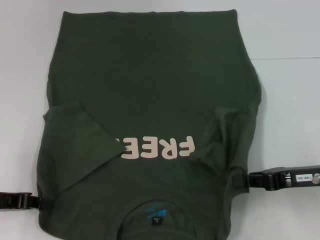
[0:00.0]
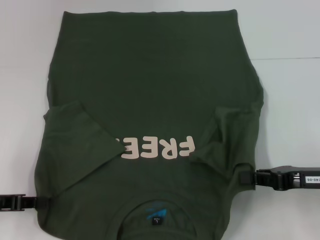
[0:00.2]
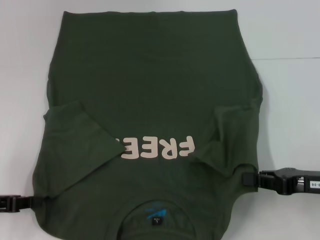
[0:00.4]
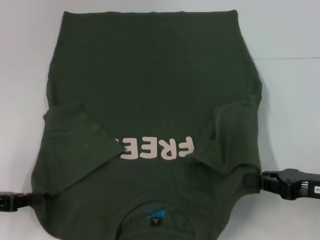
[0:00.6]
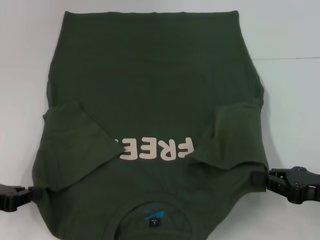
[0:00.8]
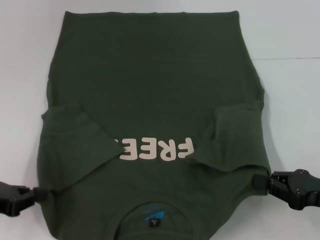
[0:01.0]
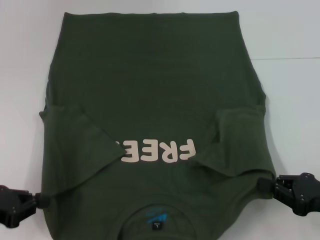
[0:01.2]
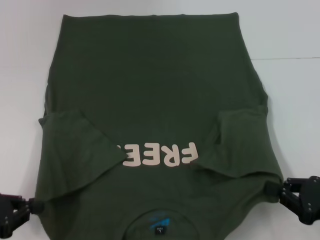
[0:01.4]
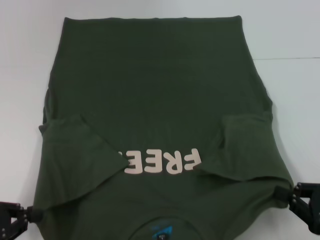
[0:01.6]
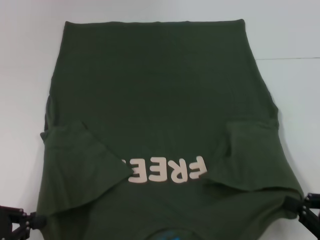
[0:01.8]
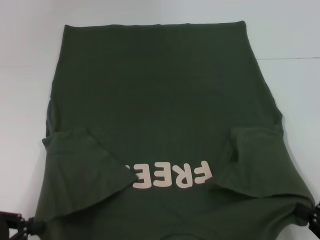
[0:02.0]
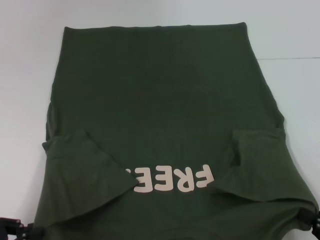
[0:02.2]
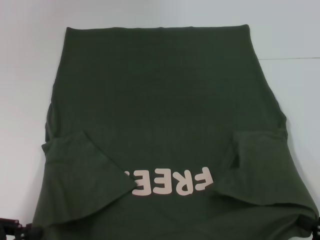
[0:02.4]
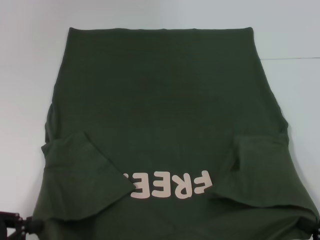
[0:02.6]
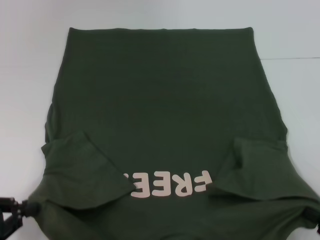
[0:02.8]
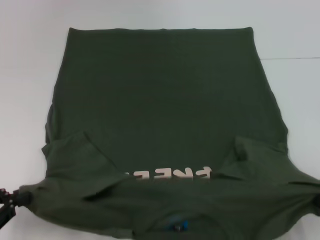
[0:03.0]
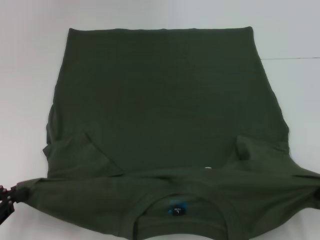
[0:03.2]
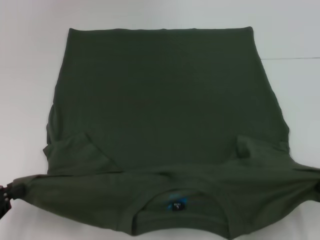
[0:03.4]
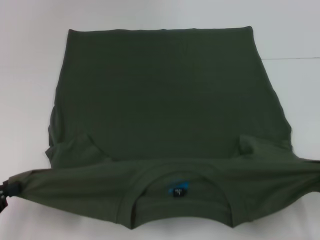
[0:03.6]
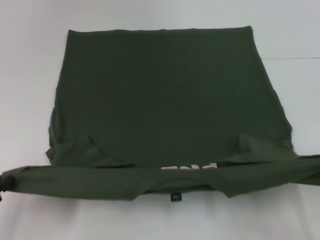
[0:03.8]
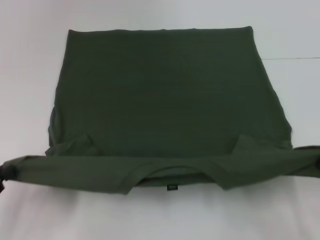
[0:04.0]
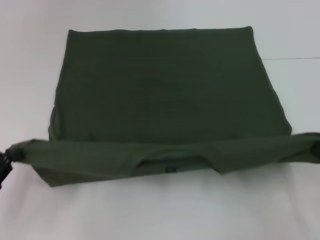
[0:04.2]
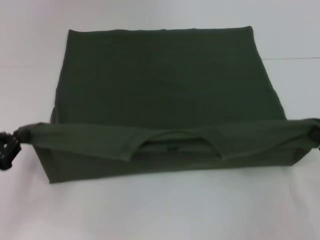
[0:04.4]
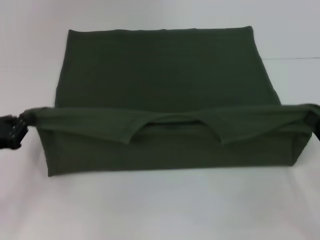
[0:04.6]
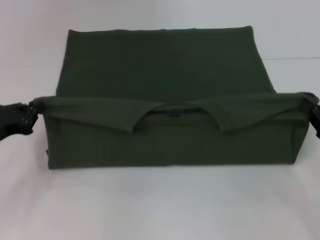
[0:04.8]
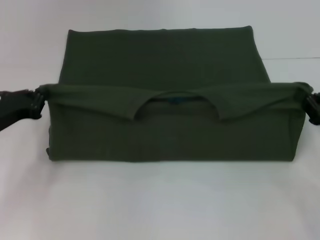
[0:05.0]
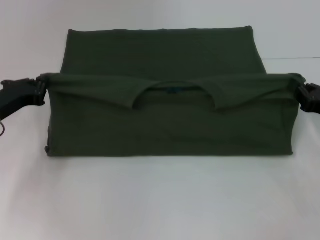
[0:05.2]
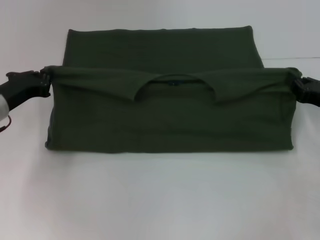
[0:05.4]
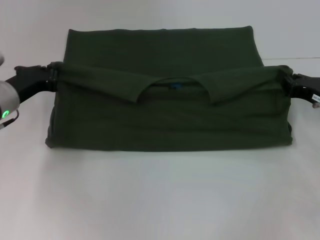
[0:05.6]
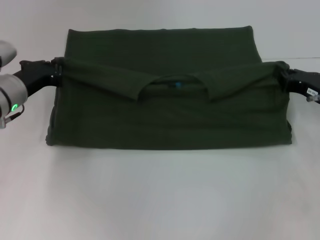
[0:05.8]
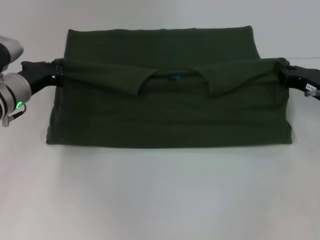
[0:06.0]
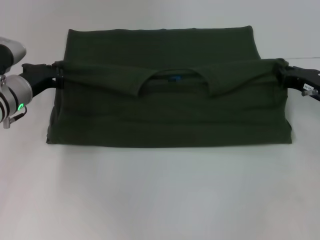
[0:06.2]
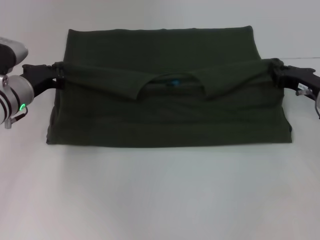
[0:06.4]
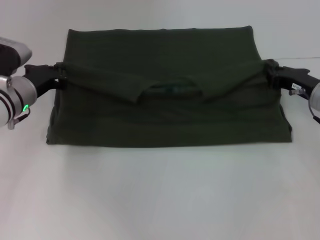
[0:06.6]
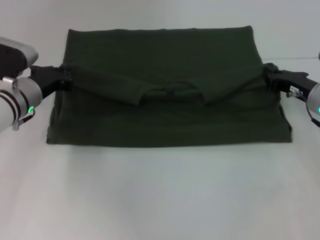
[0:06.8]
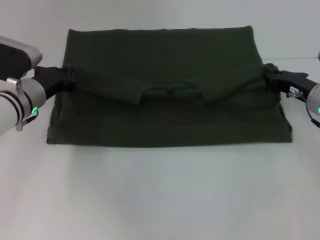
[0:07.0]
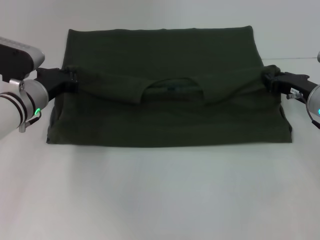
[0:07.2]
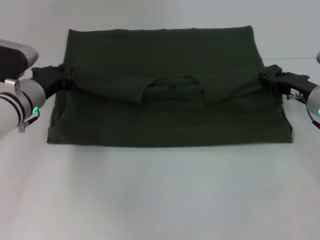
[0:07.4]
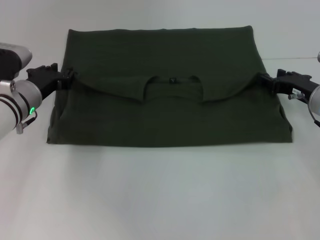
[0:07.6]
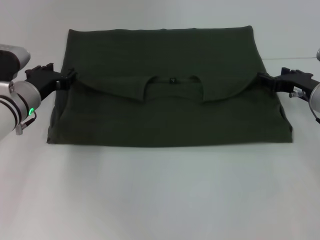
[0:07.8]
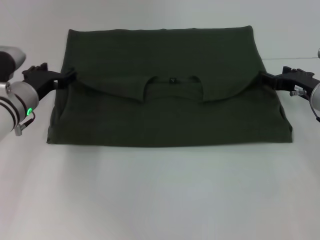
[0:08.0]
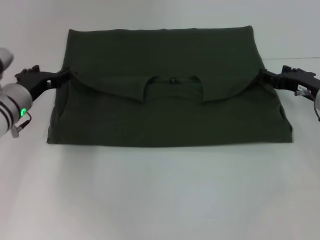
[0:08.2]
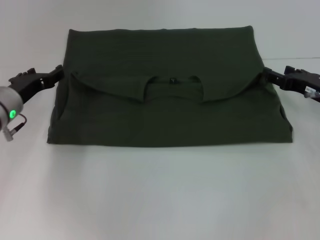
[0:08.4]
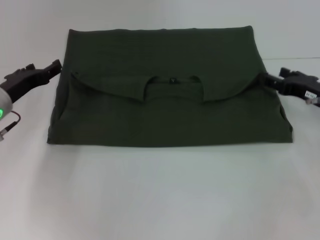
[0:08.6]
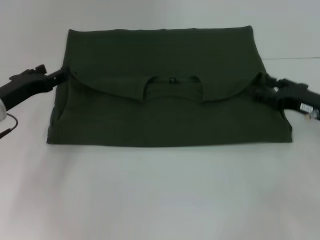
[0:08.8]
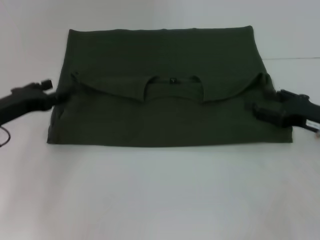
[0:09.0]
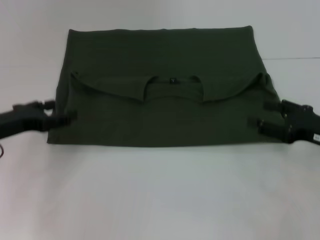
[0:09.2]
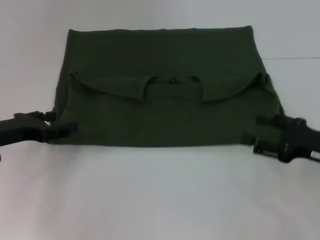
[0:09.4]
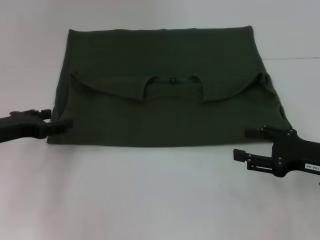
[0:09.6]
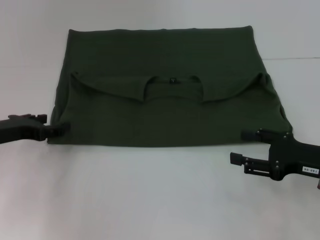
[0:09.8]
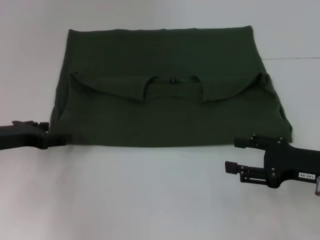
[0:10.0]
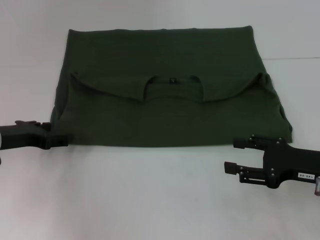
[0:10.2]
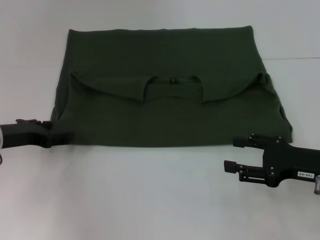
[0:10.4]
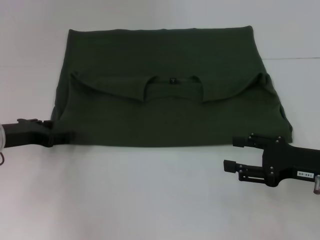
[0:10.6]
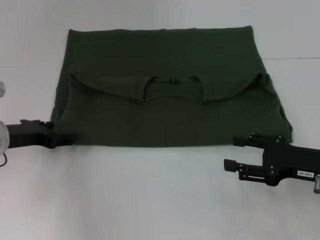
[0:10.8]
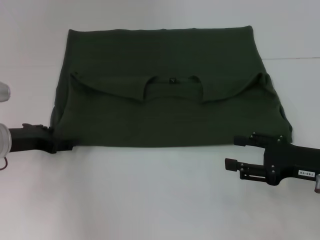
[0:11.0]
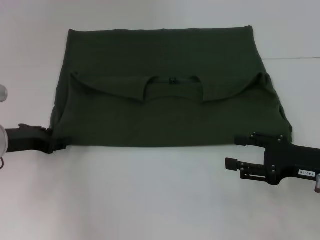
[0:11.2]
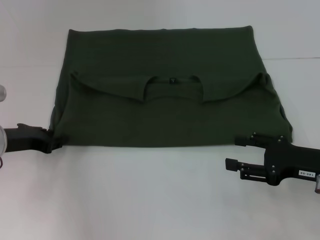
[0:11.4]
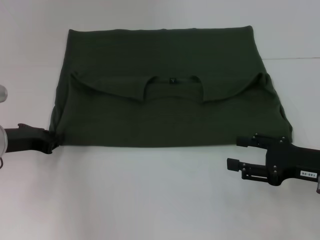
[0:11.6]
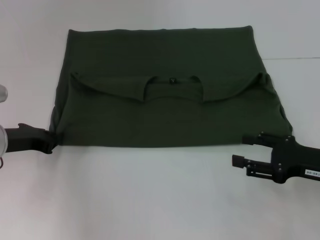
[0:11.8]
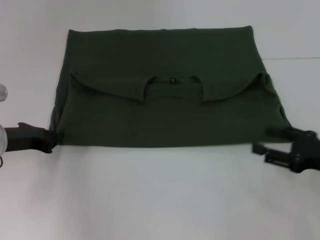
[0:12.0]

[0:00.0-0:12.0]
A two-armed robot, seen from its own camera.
Step, 0:00.0 to 0:08.0: Fold the clothes with your left hand.
Step, 0:00.0 to 0:08.0: Fold the clothes with your right hand.
0:00.0 to 0:01.6: Both grippers move backward, roughly 10 cm.
0:01.6 to 0:03.0: The right gripper travels backward by about 5 cm.
0:03.0 to 0:04.4: Both grippers move forward, some 5 cm.
0:04.4 to 0:06.0: The left gripper heads forward and to the right, covering roughly 20 cm; the right gripper shifts some 15 cm forward.
0:06.0 to 0:07.6: The right gripper opens.
0:07.6 to 0:09.0: The left gripper shifts approximately 10 cm backward and to the left, and opens its fingers. Meanwhile the right gripper shifts approximately 5 cm backward, and opens.
0:09.0 to 0:10.4: The right gripper ends up approximately 5 cm from where it was.
0:10.4 to 0:12.0: The left gripper closes up.

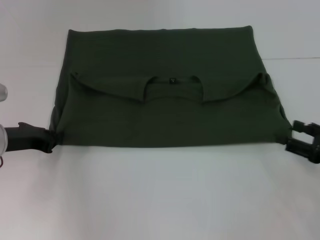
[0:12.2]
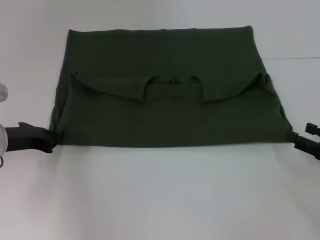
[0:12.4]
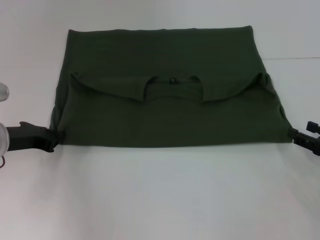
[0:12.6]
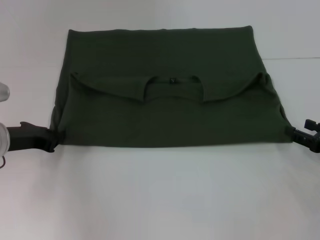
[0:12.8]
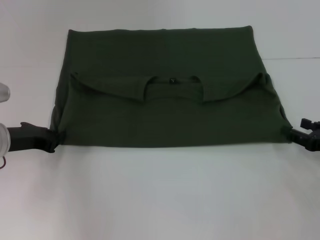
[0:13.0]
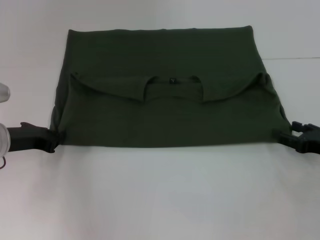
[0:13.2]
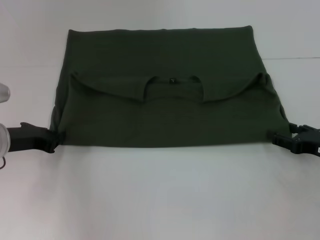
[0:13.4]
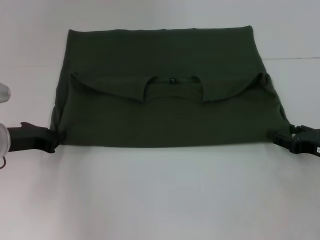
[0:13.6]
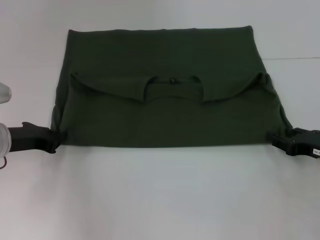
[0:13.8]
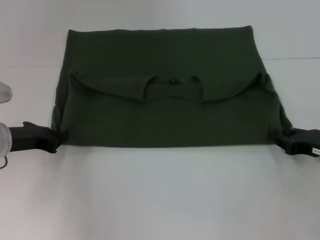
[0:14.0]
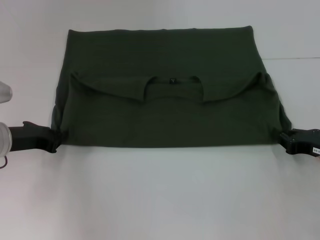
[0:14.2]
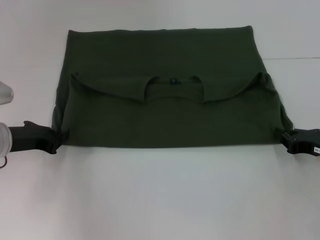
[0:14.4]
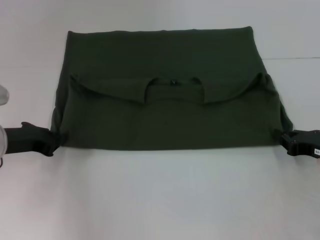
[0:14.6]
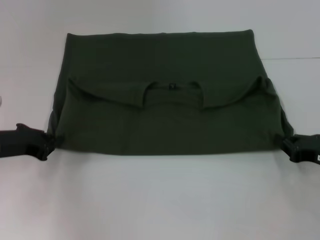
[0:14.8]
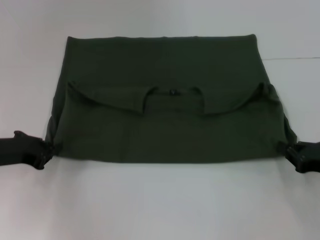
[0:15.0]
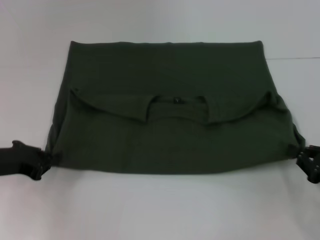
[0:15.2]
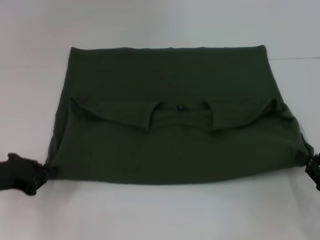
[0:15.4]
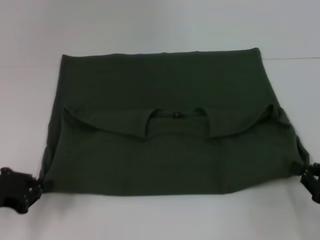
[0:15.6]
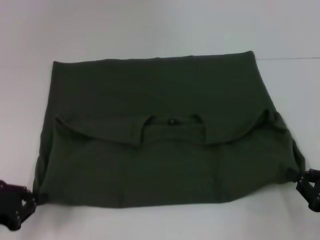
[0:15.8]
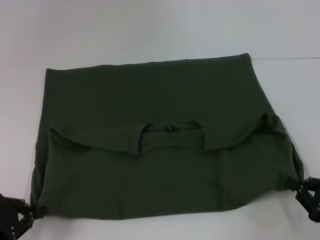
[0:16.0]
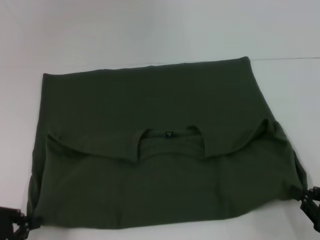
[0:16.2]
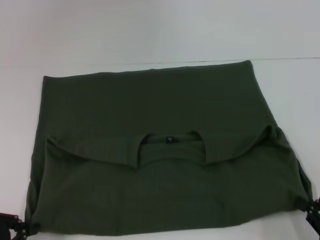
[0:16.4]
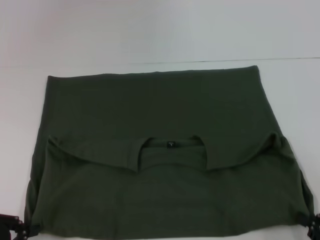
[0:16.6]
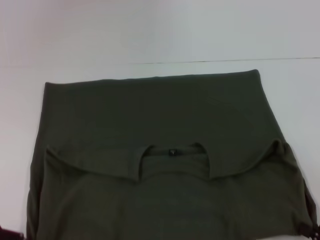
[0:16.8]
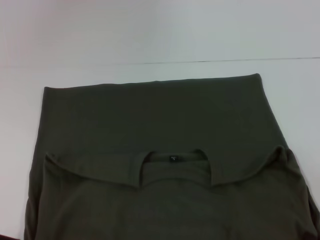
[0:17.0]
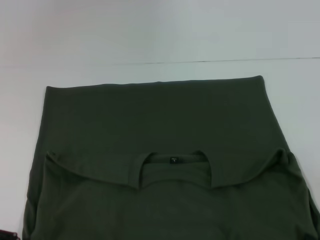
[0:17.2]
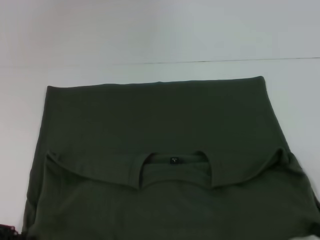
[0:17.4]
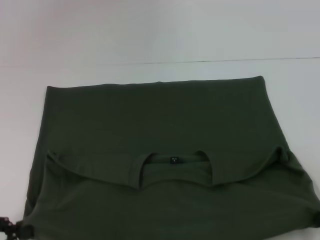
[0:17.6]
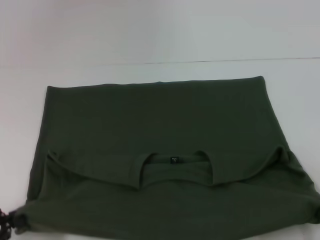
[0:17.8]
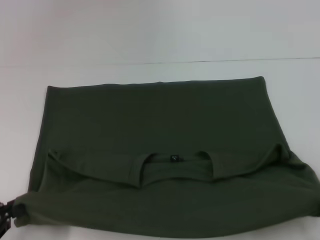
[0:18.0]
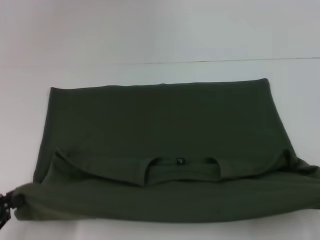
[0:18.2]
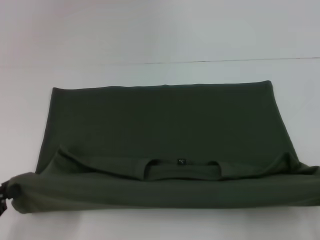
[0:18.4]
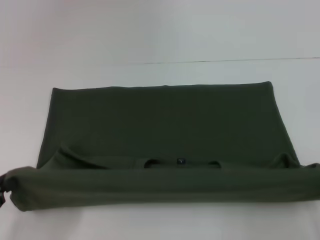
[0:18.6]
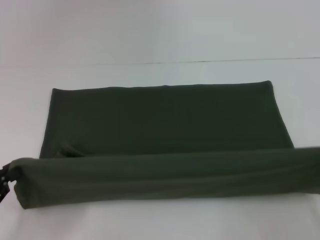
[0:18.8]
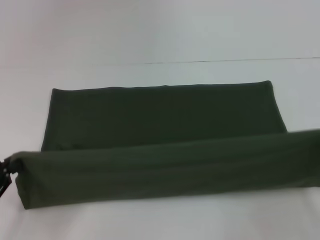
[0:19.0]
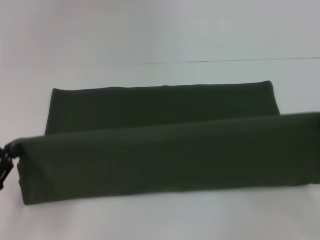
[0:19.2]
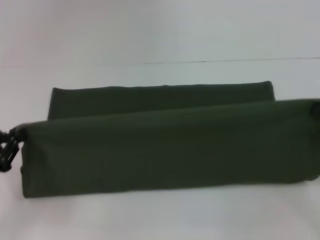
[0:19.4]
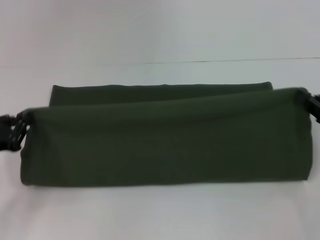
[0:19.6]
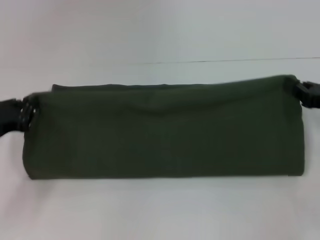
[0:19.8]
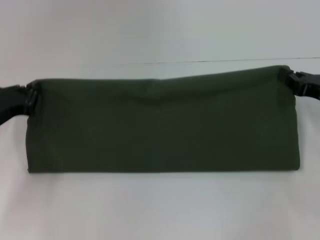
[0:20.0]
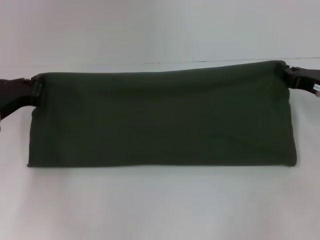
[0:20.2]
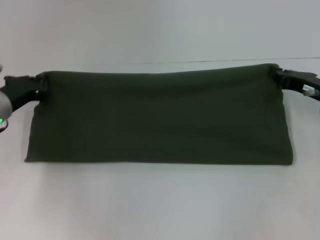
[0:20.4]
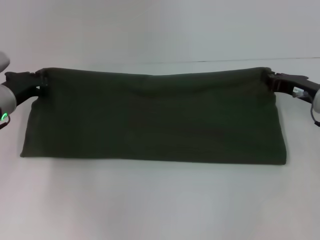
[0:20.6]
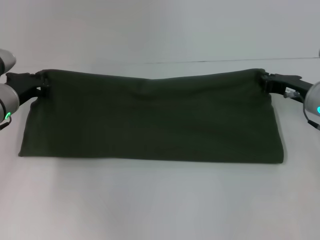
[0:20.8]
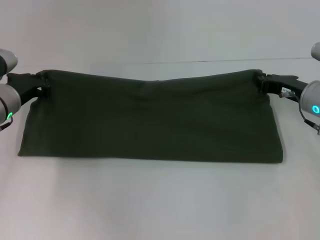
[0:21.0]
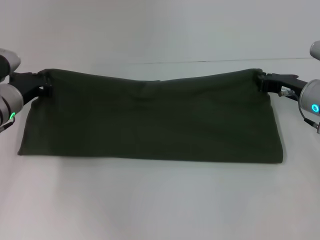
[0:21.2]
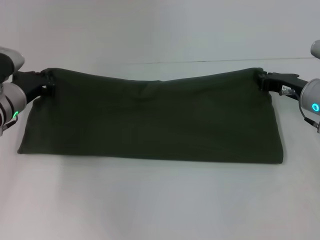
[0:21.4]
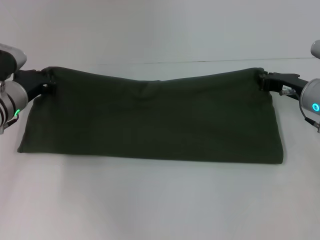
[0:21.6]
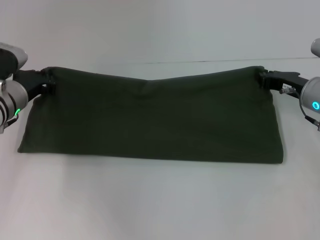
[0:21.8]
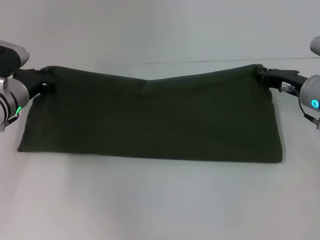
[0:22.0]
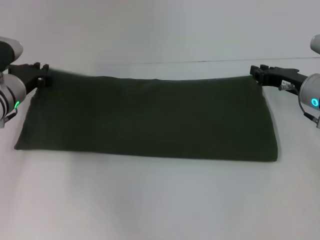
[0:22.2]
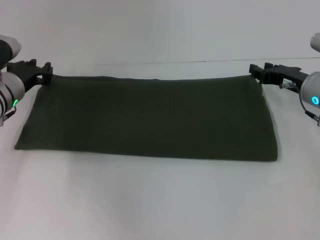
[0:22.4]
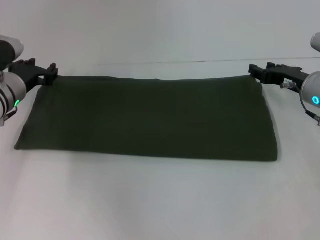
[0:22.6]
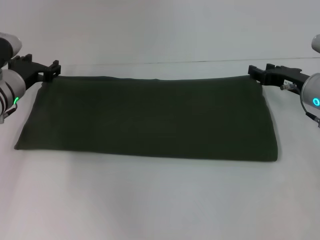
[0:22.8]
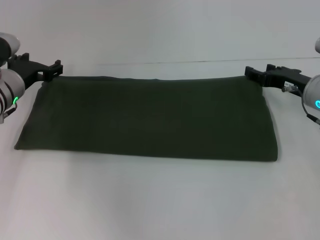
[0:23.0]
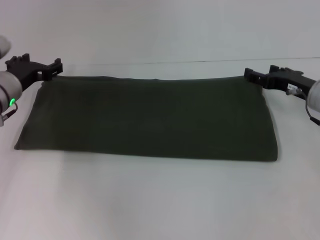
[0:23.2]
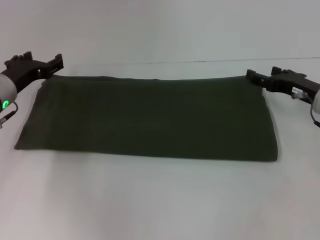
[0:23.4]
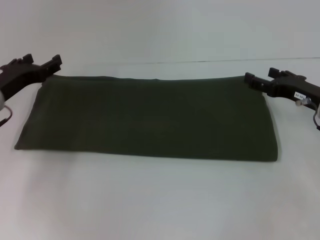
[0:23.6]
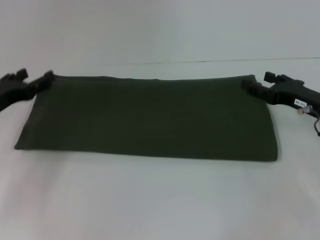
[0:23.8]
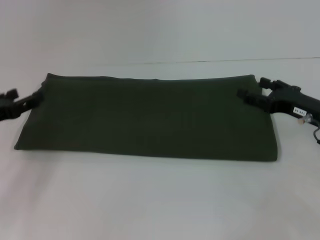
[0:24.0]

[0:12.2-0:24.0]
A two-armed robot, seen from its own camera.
Step, 0:12.2 to 0:16.8: Pull the clothes with your left hand.
Step, 0:12.2 to 0:16.8: Pull the clothes with your right hand.
Step, 0:17.0 to 0:22.6: Fold the clothes with your left hand.
Step, 0:17.0 to 0:22.6: Fold the clothes with your right hand.
0:12.2 to 0:13.6: The right gripper ends up about 5 cm from where it was.
0:13.6 to 0:15.2: The right gripper heads backward, covering approximately 5 cm, and closes up.
0:15.2 to 0:16.6: The grippers both shift backward by some 10 cm.
0:16.6 to 0:18.2: The grippers make only small movements.
0:18.2 to 0:19.6: The left gripper heads forward, covering roughly 10 cm. Meanwhile the right gripper travels forward by some 20 cm.
0:19.6 to 0:21.0: The left gripper travels forward and to the right by about 15 cm. Meanwhile the right gripper shifts about 15 cm forward and to the left.
0:21.0 to 0:22.6: The right gripper opens its fingers; the left gripper opens up.
0:22.6 to 0:24.0: The left gripper shifts approximately 15 cm backward and to the left, and opens its fingers, while the right gripper moves backward, roughly 5 cm, and opens up.
